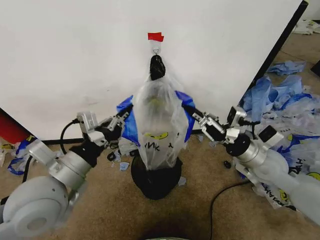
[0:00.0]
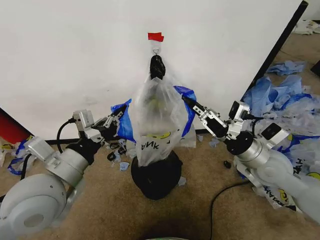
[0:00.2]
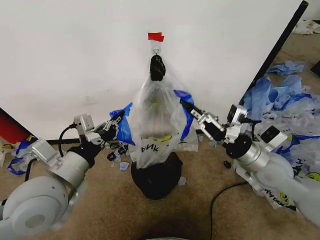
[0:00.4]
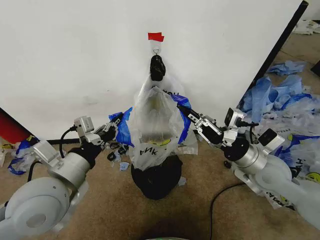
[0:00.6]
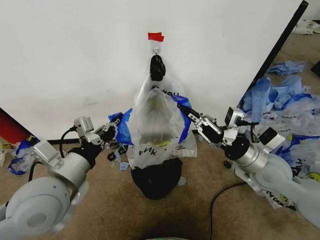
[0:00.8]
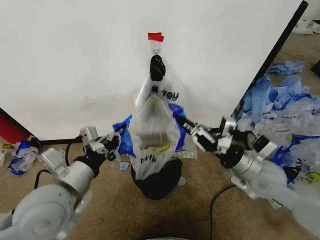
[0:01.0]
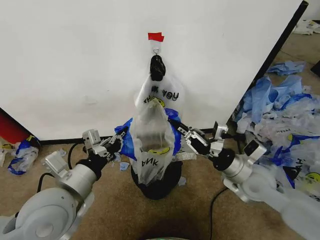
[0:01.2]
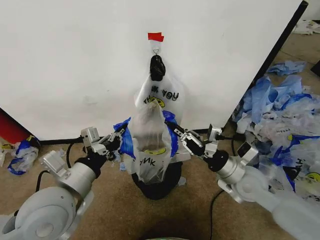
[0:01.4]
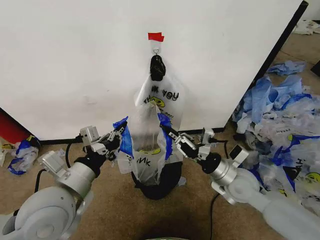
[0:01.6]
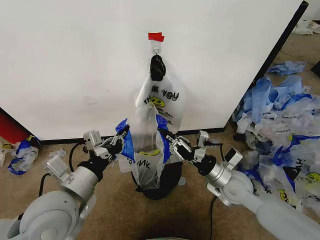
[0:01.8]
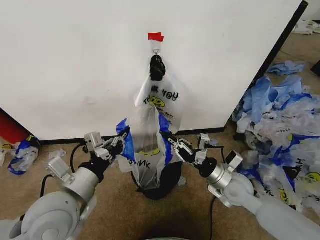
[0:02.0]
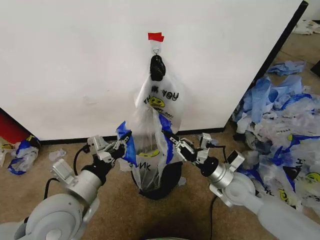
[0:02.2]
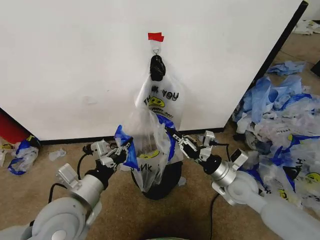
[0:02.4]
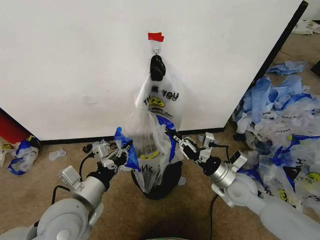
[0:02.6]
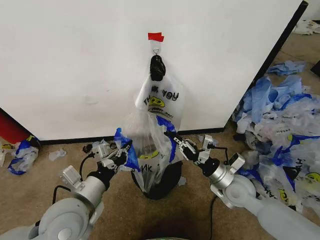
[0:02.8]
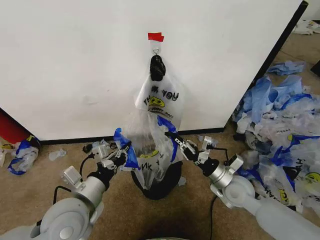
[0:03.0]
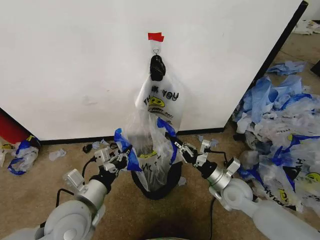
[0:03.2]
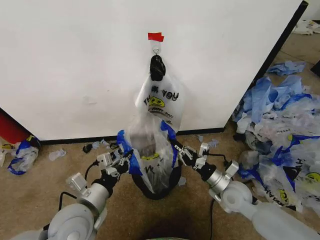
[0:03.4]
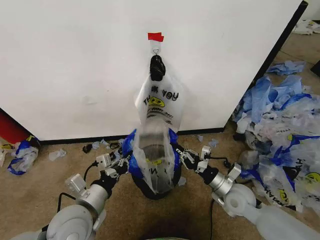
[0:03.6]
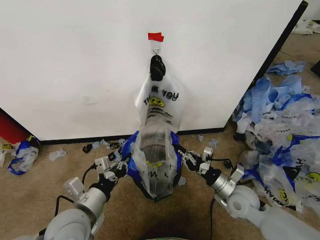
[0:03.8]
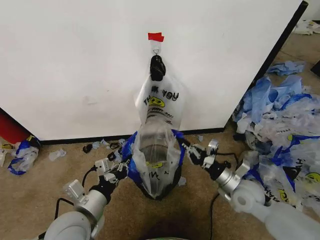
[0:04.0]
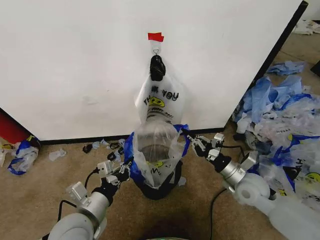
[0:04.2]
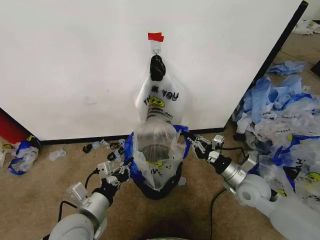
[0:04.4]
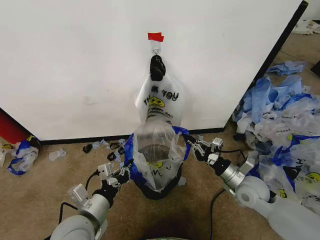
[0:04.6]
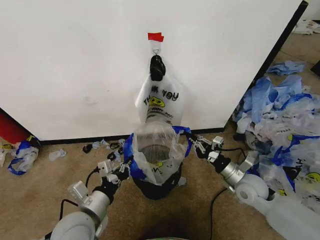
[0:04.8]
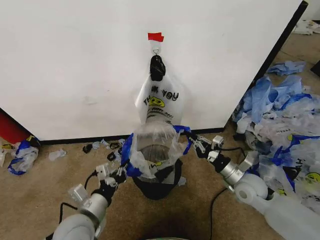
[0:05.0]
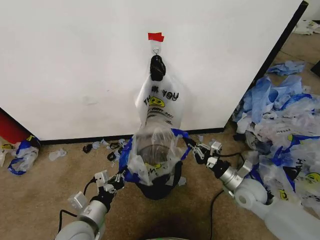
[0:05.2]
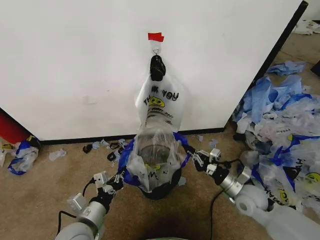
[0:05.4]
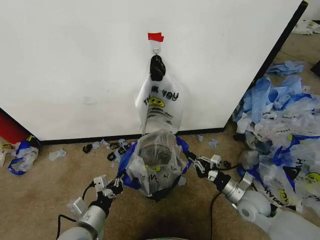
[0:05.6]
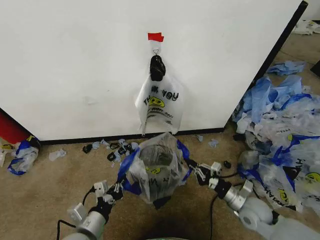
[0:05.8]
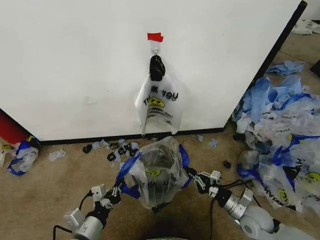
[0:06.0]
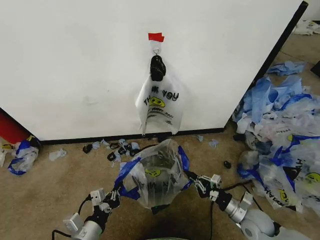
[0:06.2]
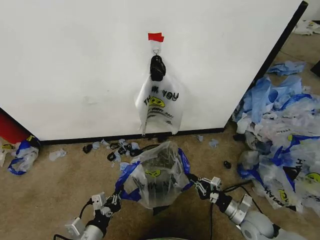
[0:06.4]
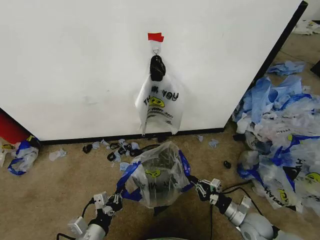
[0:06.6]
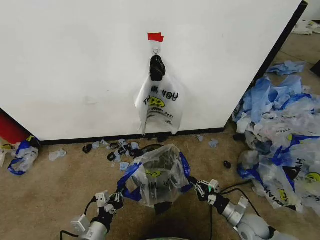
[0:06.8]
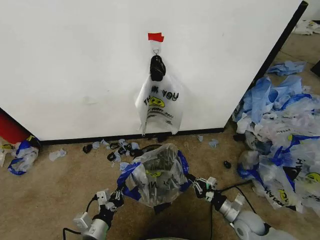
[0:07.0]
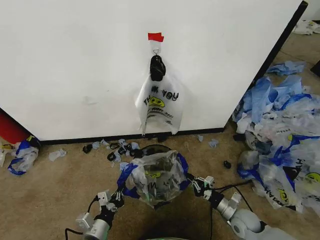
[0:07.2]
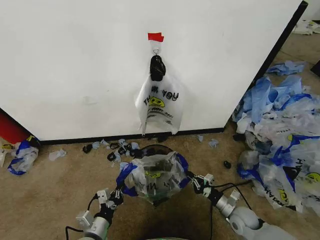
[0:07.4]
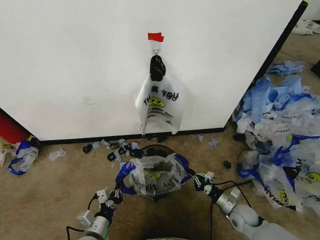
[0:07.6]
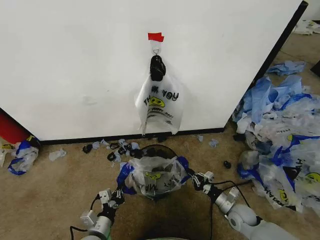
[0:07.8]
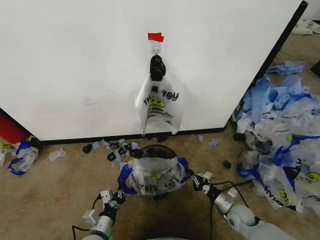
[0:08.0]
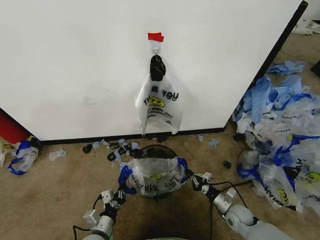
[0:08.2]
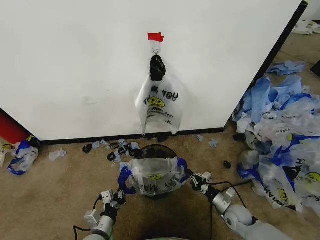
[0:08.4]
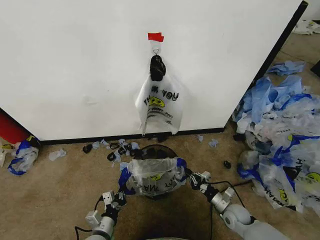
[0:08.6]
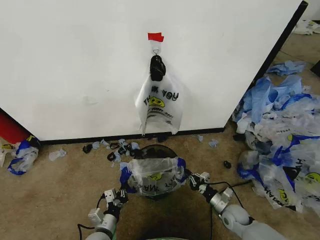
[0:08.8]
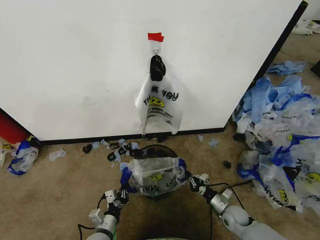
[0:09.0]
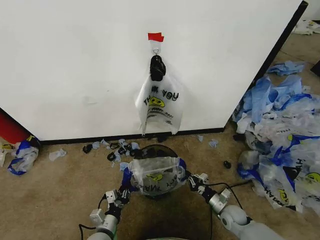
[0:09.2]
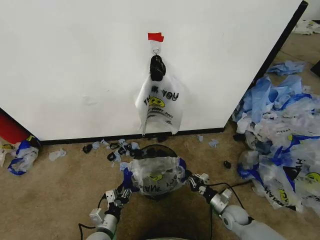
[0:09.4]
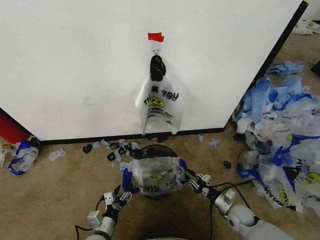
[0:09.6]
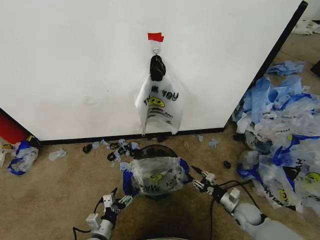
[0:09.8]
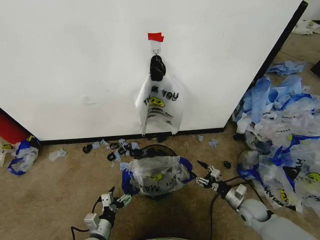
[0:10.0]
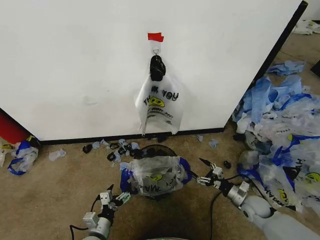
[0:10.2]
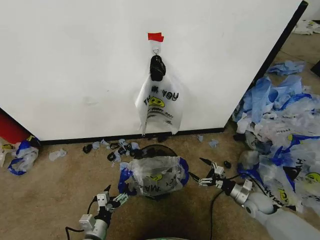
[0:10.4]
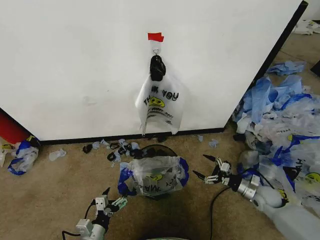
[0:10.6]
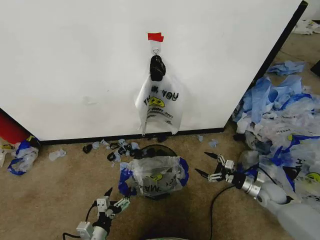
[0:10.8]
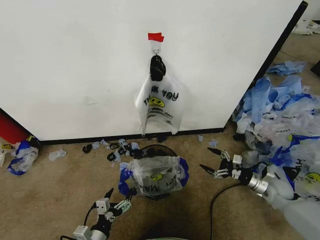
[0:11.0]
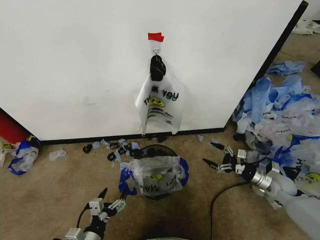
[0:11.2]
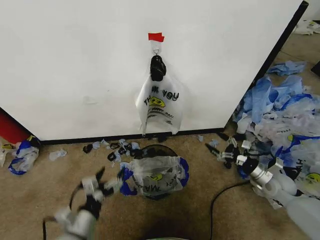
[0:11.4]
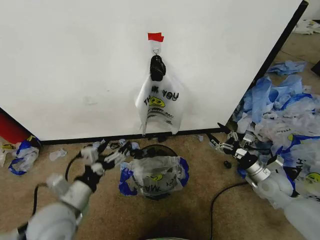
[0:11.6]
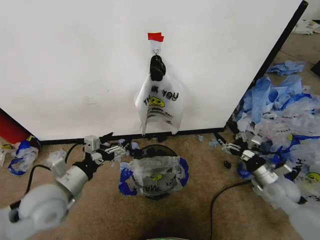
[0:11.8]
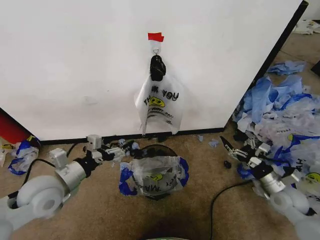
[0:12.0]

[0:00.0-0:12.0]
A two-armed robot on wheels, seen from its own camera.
Task of the whole recording: Pick up the garbage bag from the wall and place it over the trash bin.
0.0 to 1.6 s: The right gripper travels downward and to the left by roughly 10 cm.
1.6 to 3.0 s: The two grippers go roughly 5 cm downward.
3.0 to 4.4 s: The grippers make only small movements.
4.4 to 6.0 s: The right gripper heads downward and backward, covering roughly 10 cm, while the left gripper travels downward by about 5 cm.
6.0 to 7.6 s: The two grippers go roughly 10 cm downward.
7.6 to 9.0 s: The left gripper changes place by about 5 cm.
9.0 to 10.4 s: The left gripper opens up. The right gripper goes approximately 10 cm to the right and upward, and opens its fingers.
10.4 to 12.0 s: The right gripper travels upward by some 10 cm, while the left gripper is displaced upward and forward by about 25 cm.

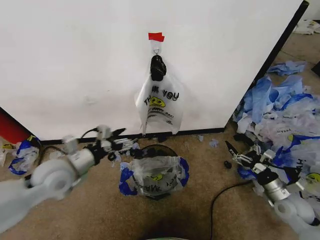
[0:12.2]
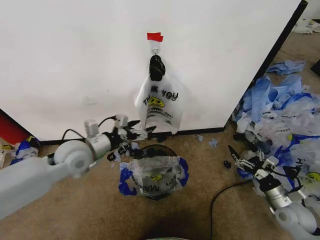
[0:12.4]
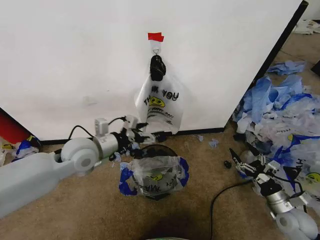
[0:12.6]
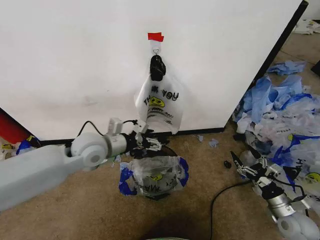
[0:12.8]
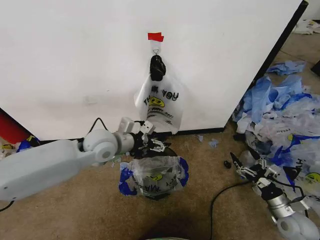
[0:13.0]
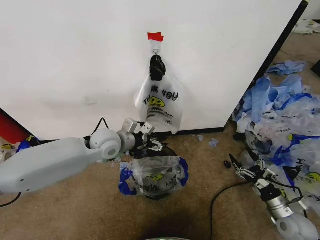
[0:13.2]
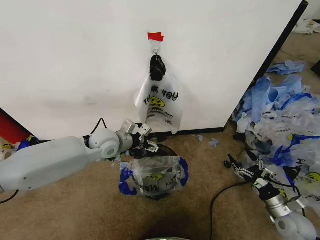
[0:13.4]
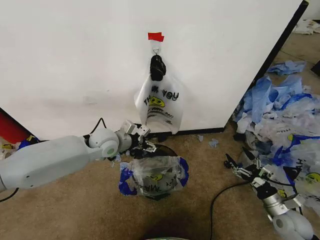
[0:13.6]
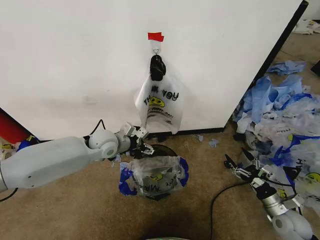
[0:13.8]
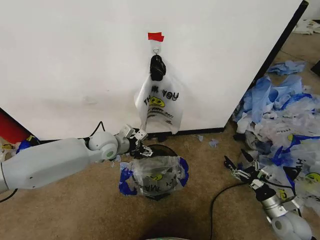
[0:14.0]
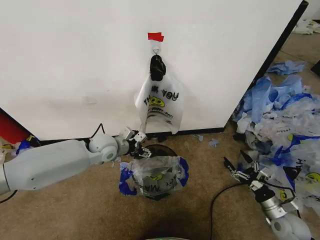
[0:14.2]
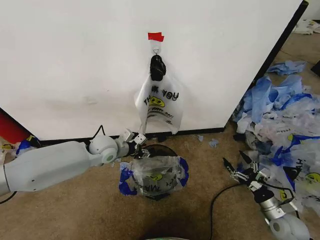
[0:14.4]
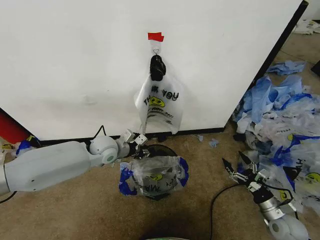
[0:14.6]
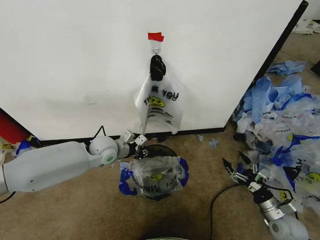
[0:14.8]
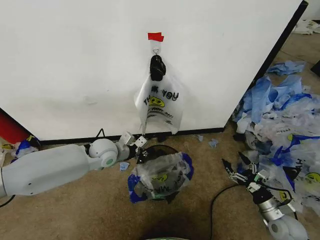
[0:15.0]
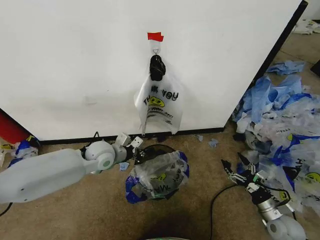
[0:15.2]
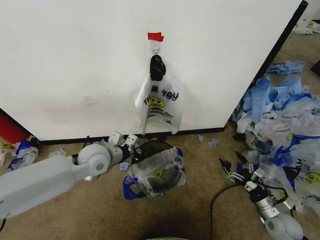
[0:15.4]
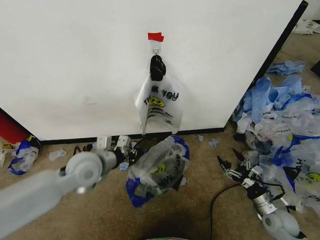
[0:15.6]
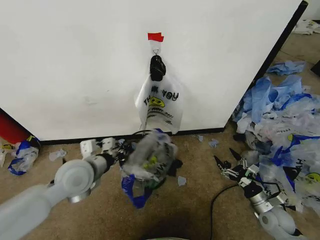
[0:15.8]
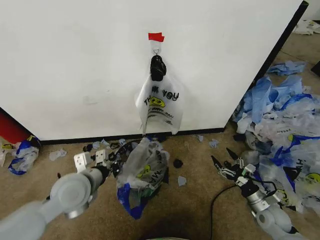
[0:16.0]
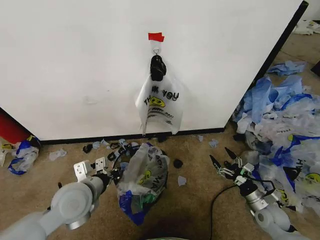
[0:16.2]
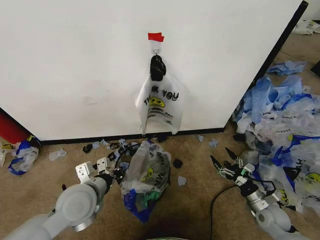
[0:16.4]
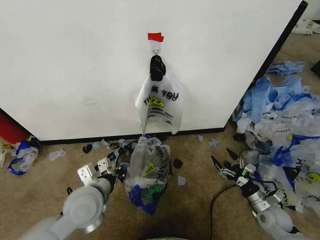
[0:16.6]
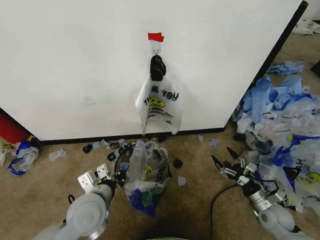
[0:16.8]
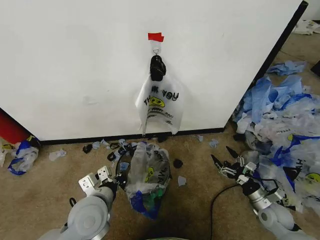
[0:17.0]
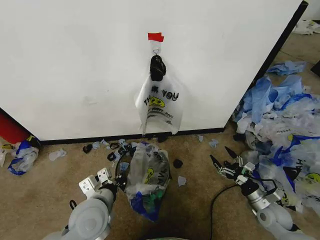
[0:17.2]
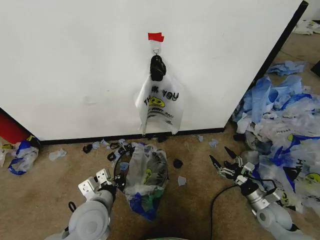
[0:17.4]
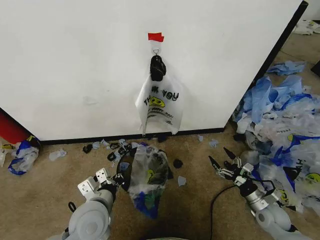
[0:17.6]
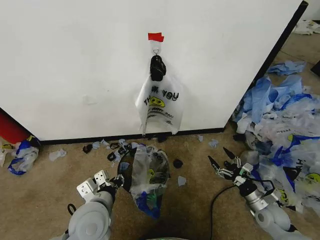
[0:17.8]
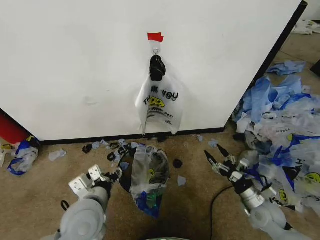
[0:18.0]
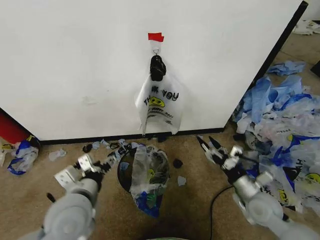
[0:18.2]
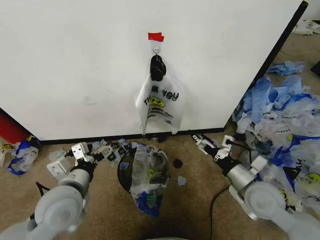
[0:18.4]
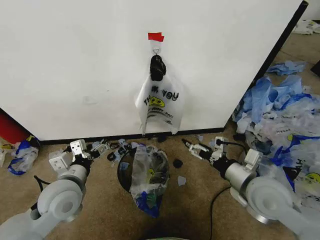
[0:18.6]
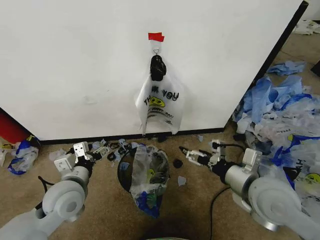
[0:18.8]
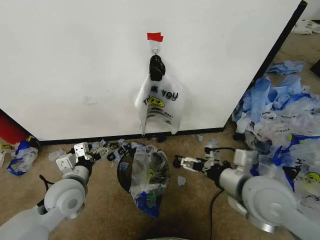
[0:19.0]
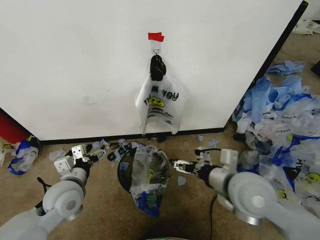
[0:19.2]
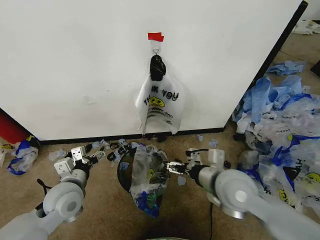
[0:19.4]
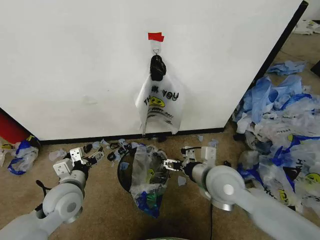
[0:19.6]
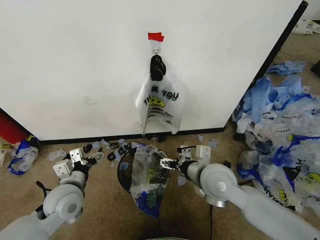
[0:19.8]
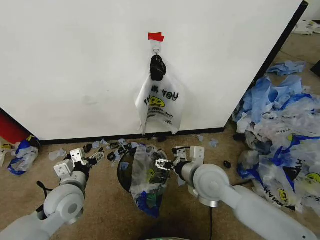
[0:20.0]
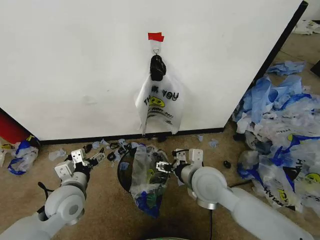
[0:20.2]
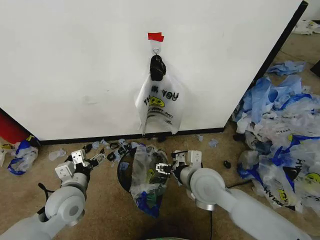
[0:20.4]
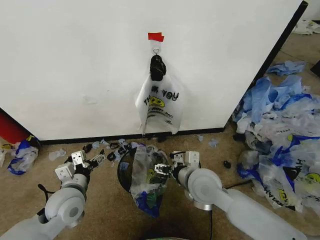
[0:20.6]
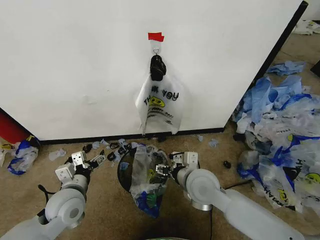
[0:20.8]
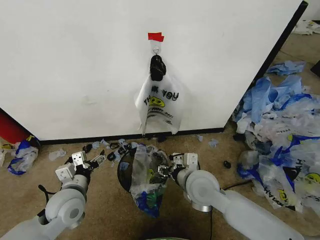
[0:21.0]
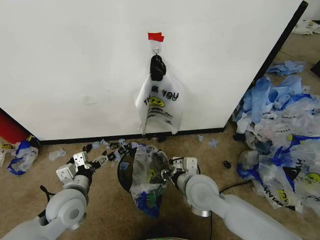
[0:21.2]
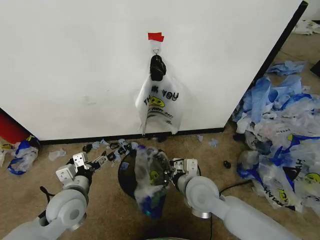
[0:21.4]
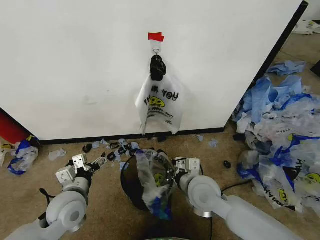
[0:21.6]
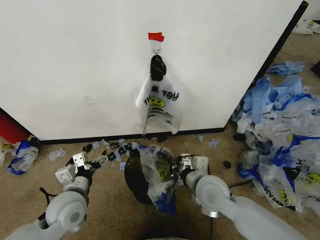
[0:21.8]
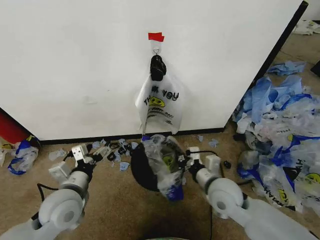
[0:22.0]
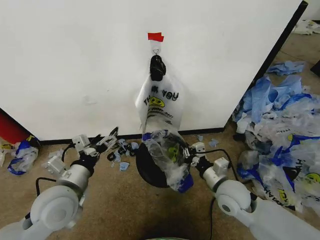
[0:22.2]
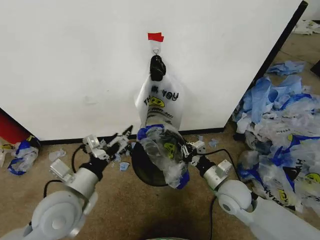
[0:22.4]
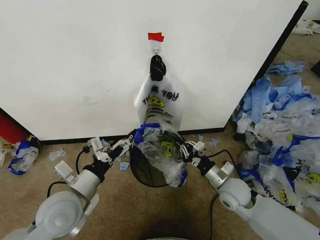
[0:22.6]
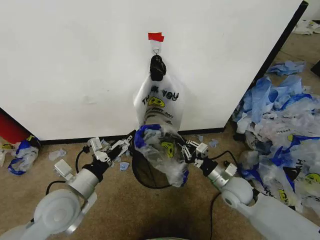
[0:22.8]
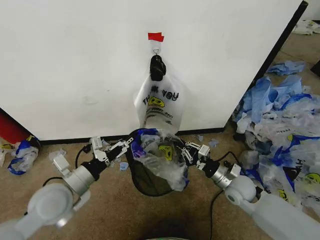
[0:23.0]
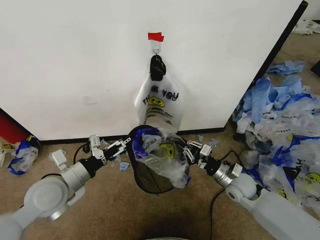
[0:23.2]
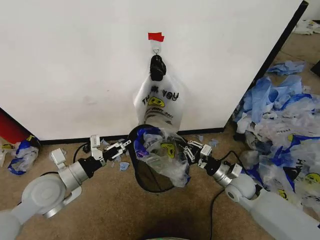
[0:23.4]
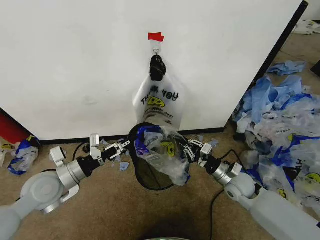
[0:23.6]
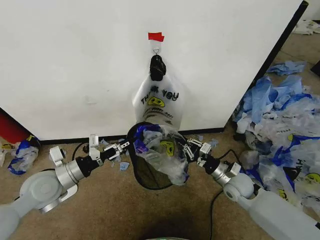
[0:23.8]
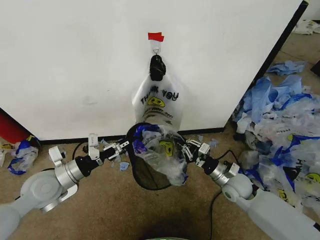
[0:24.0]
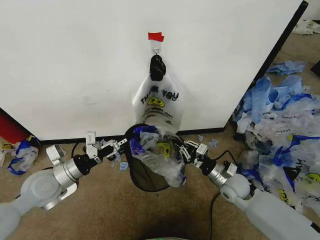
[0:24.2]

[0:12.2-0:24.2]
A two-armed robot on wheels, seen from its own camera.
Task of the whole recording: Pick up the garbage bag from the wall and place it over the trash bin.
12.2 to 13.8 s: The right gripper changes place by approximately 5 cm; the left gripper heads forward and to the right, covering roughly 15 cm.
13.8 to 15.2 s: The left gripper closes up.
15.2 to 16.6 s: The left gripper shifts about 15 cm backward.
16.6 to 18.2 s: The left gripper moves some 5 cm, and opens up; the right gripper heads upward and to the left, covering approximately 15 cm.
18.2 to 19.8 s: The right gripper moves to the left and upward, roughly 20 cm. Meanwhile the left gripper heads downward, to the left and forward, covering roughly 10 cm.
19.8 to 21.2 s: The right gripper moves some 5 cm, and closes up.
21.2 to 22.6 s: The left gripper shifts roughly 5 cm upward. Meanwhile the right gripper heads to the right and downward, covering roughly 15 cm, and closes.
22.6 to 24.2 s: The left gripper goes roughly 10 cm to the left and forward.
